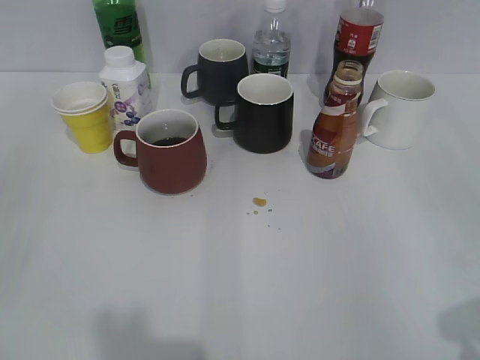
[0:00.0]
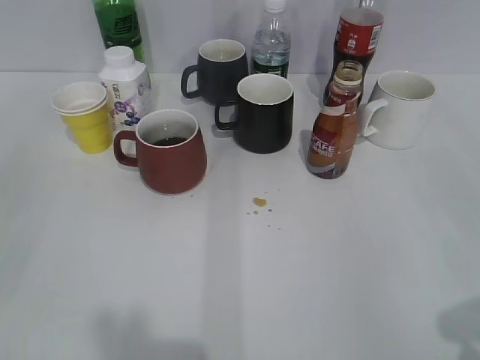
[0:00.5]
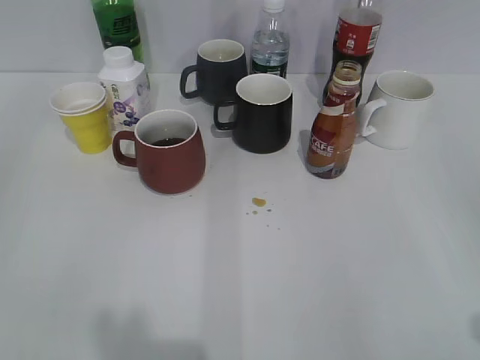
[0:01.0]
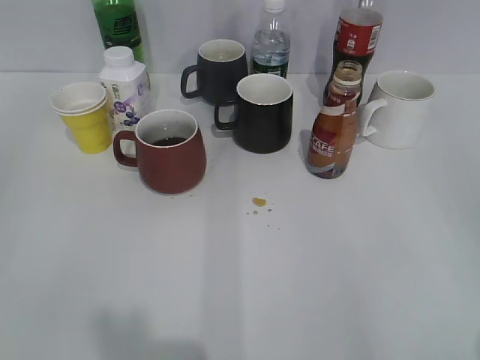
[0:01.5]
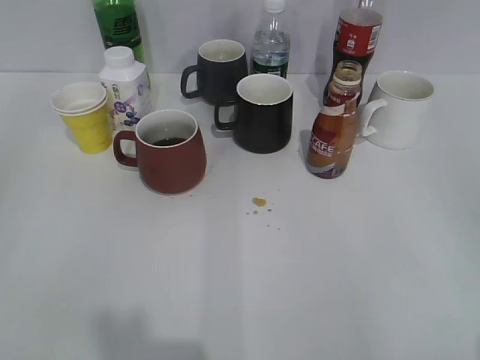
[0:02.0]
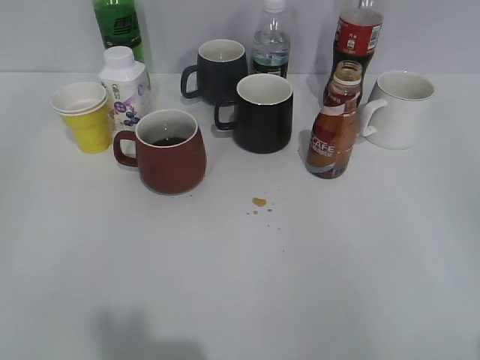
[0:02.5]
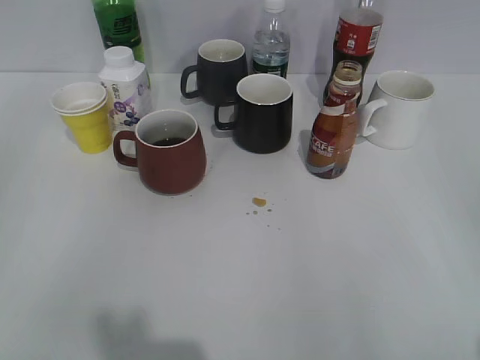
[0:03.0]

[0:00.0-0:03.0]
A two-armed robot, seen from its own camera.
0:01.5 to 0:03.0: Both grippers stay put.
